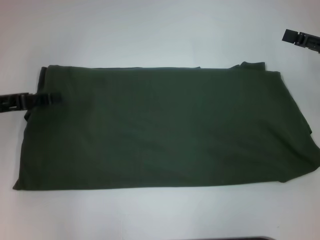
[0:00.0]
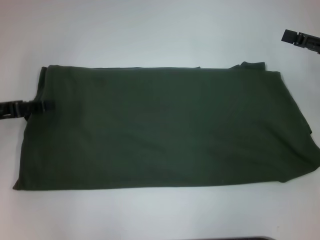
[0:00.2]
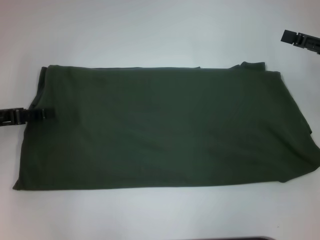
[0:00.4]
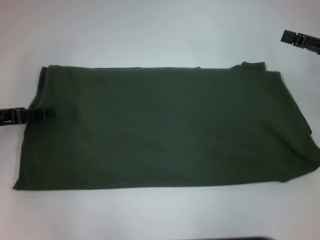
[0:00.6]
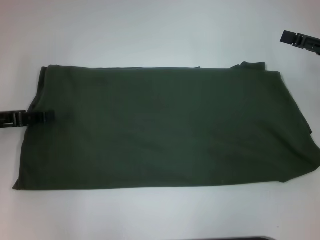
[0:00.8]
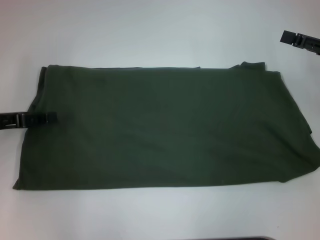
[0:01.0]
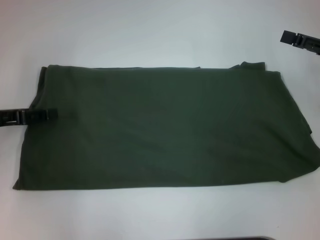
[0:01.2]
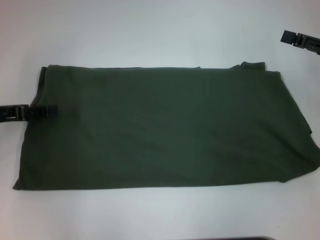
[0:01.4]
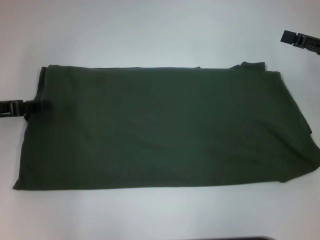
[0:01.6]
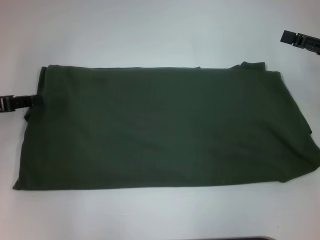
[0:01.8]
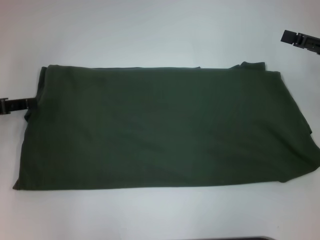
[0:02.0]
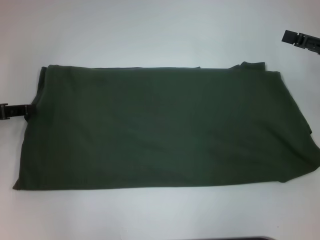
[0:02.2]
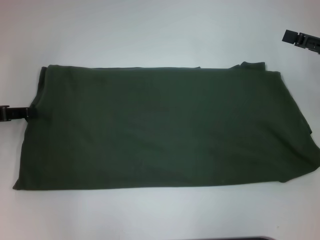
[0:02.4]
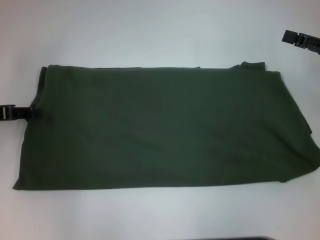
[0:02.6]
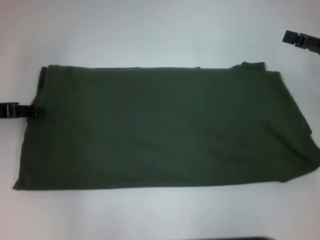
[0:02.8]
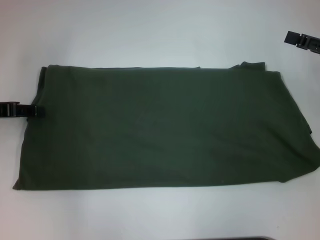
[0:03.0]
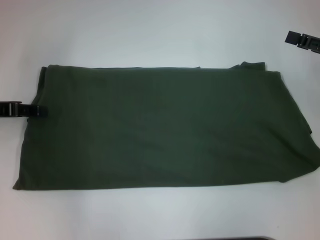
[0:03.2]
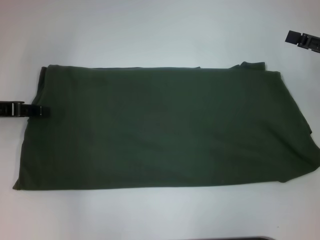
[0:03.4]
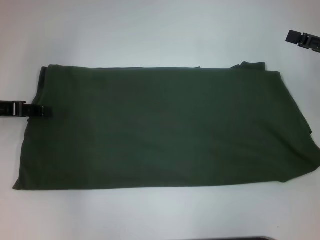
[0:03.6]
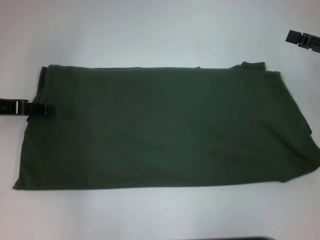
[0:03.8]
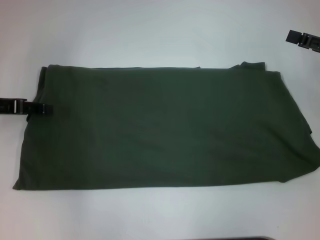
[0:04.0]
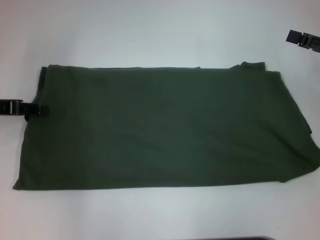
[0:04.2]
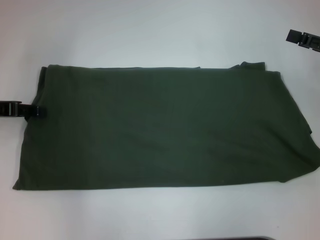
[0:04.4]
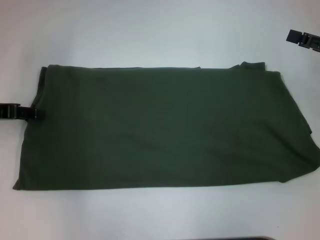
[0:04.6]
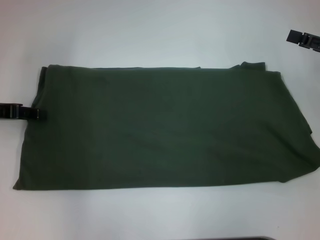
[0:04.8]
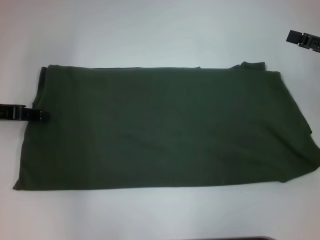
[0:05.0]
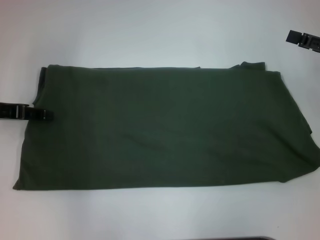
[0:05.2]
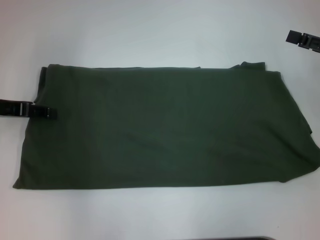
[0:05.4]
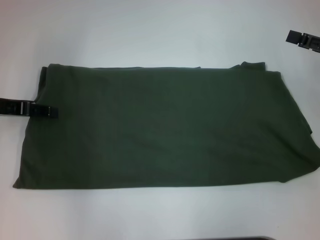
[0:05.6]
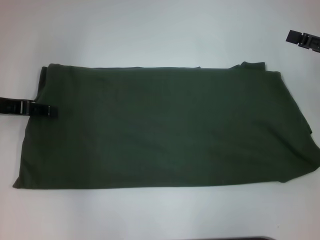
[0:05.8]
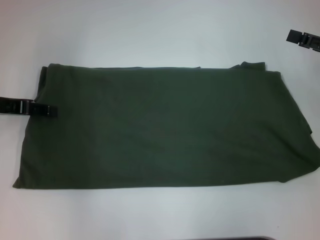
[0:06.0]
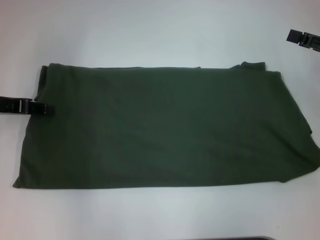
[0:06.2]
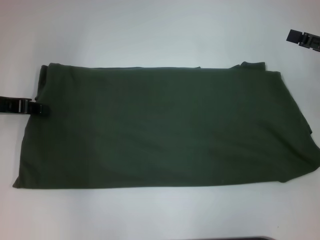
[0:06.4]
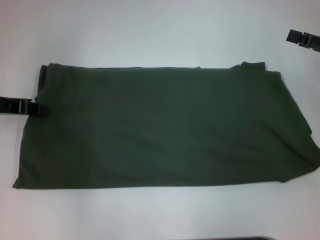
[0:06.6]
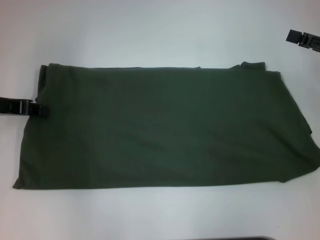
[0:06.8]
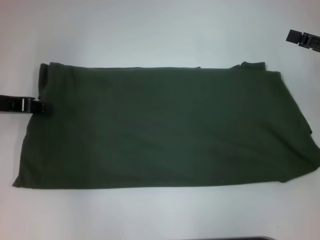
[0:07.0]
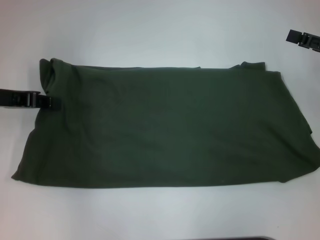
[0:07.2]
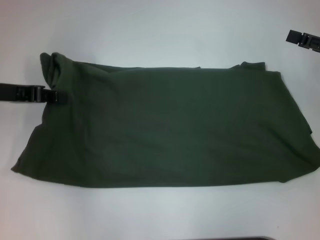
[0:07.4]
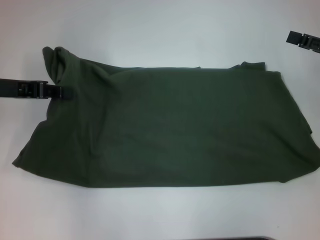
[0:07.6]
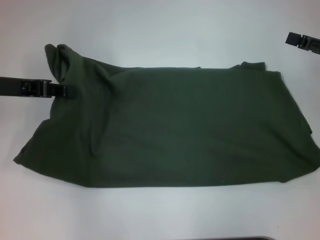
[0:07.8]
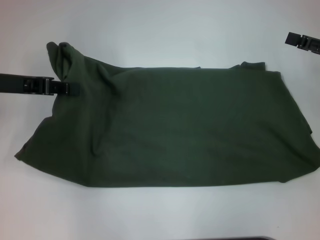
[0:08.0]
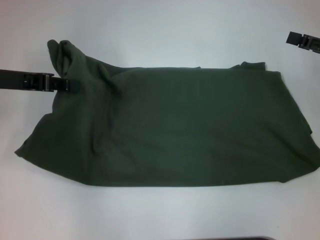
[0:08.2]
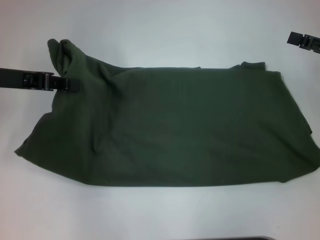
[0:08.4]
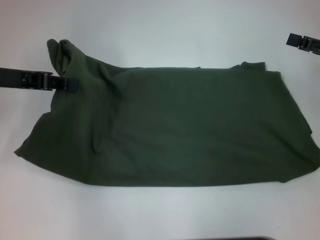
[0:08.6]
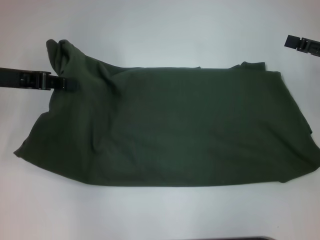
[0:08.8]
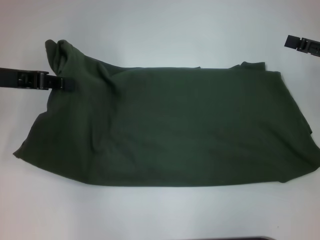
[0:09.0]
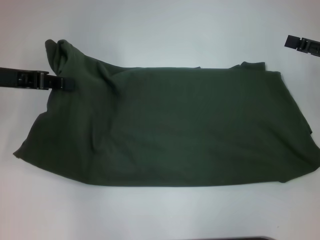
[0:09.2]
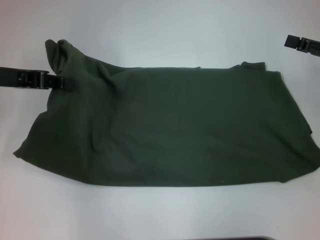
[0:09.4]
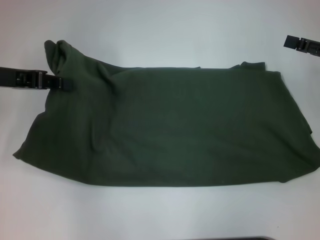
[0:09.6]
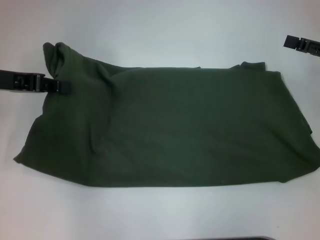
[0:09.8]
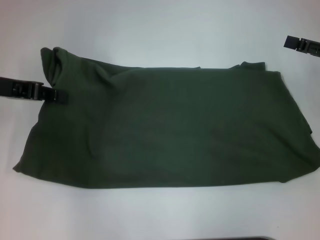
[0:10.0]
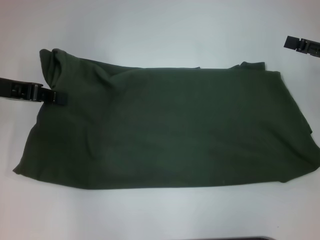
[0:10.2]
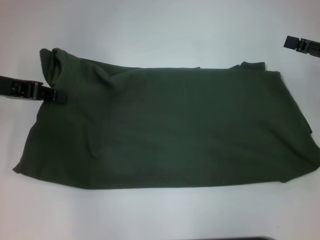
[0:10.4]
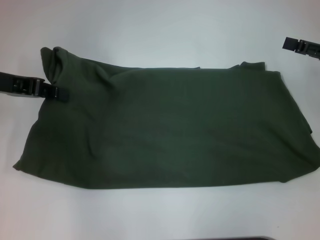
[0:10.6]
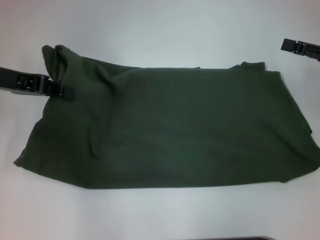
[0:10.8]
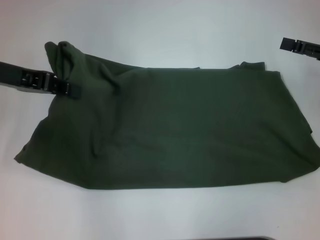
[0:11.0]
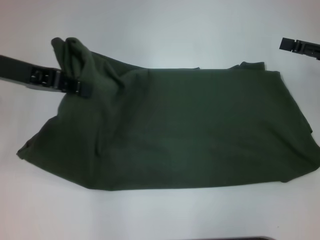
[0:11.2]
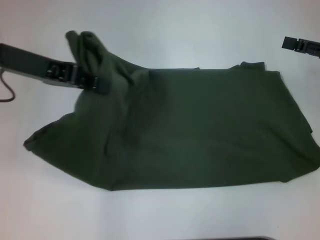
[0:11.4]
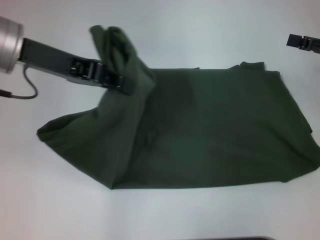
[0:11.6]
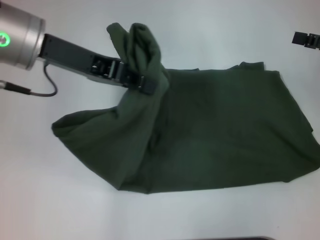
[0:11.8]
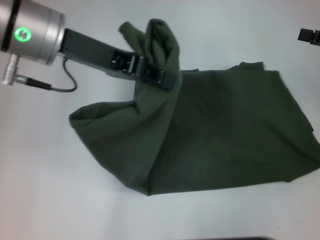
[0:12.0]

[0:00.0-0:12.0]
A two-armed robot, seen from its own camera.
0:00.0 to 0:01.6: The grippers make only small movements.
0:04.4 to 0:06.0: The grippers stay close to where they were, moving slightly.
0:06.0 to 0:07.6: The left gripper closes.
0:07.6 to 0:10.4: There are only small adjustments of the grippers.
0:10.4 to 0:12.0: The left gripper goes roughly 15 cm to the right and upward.

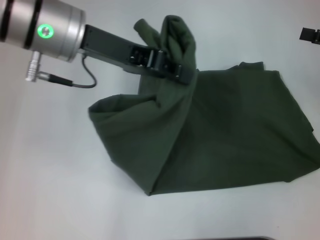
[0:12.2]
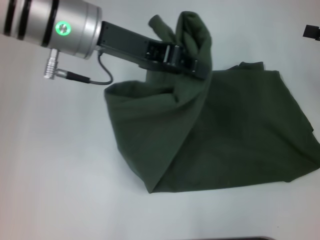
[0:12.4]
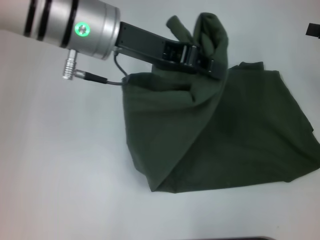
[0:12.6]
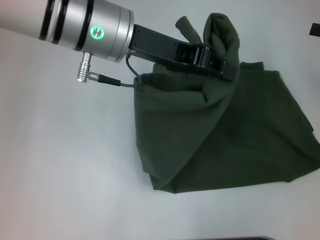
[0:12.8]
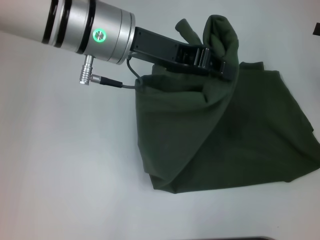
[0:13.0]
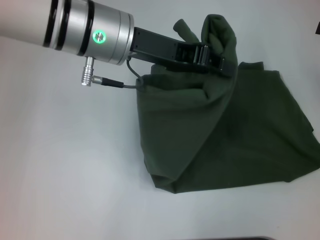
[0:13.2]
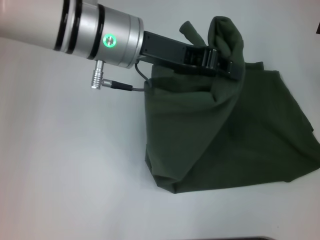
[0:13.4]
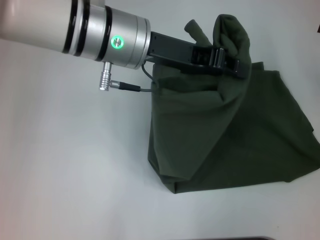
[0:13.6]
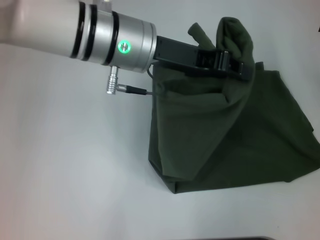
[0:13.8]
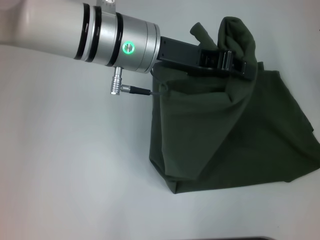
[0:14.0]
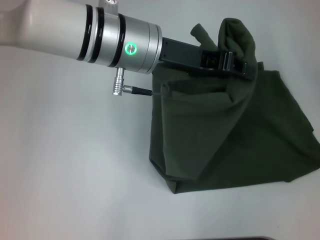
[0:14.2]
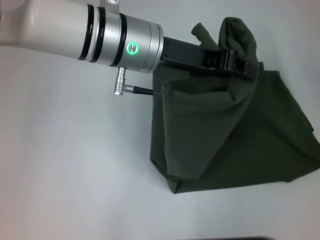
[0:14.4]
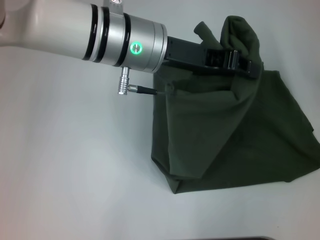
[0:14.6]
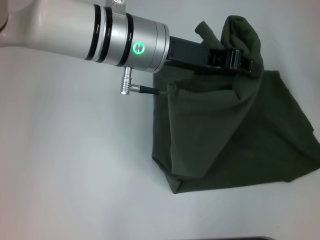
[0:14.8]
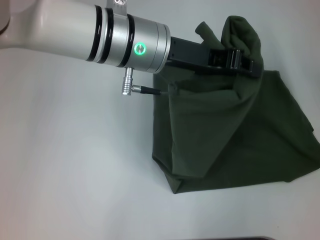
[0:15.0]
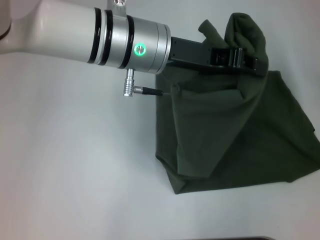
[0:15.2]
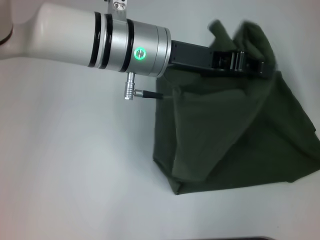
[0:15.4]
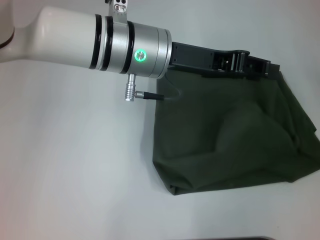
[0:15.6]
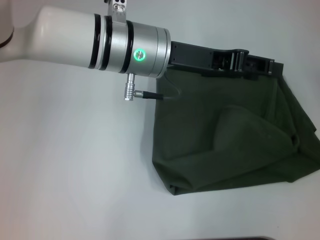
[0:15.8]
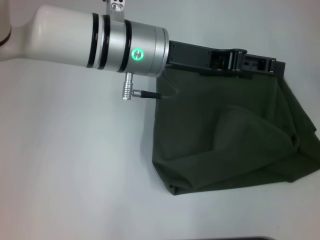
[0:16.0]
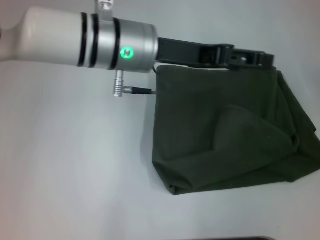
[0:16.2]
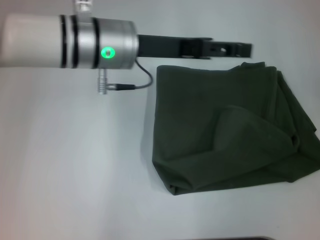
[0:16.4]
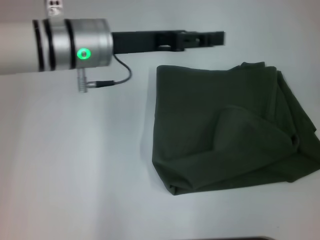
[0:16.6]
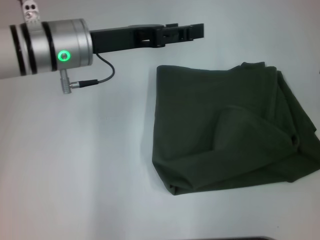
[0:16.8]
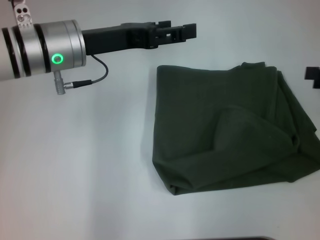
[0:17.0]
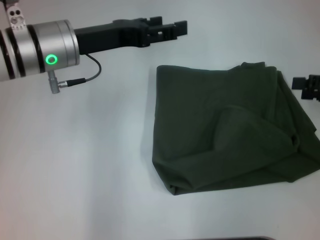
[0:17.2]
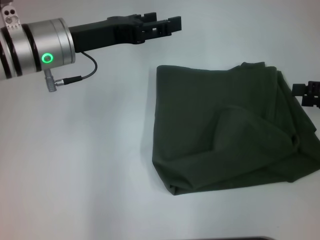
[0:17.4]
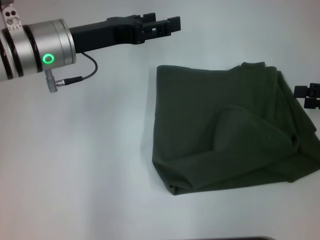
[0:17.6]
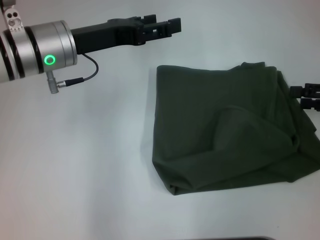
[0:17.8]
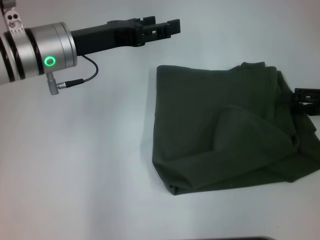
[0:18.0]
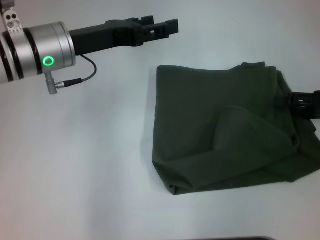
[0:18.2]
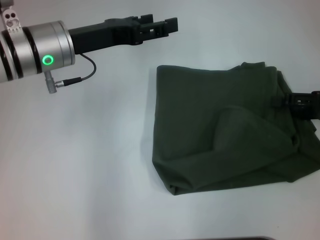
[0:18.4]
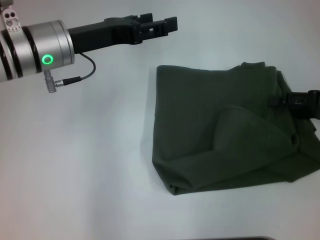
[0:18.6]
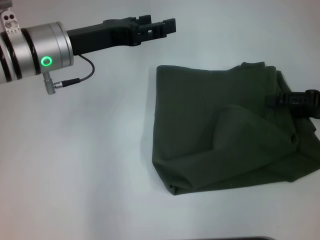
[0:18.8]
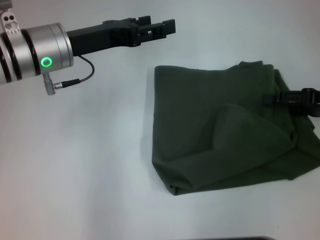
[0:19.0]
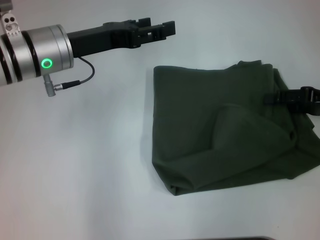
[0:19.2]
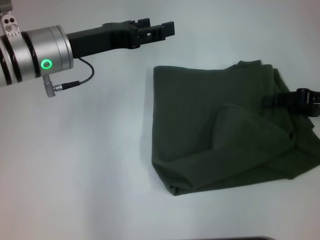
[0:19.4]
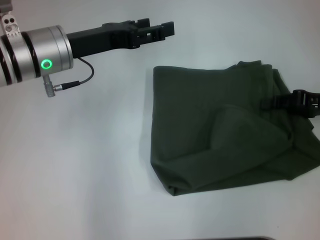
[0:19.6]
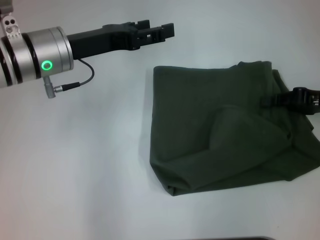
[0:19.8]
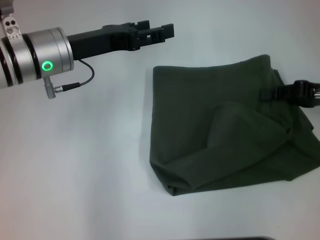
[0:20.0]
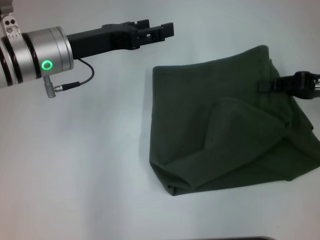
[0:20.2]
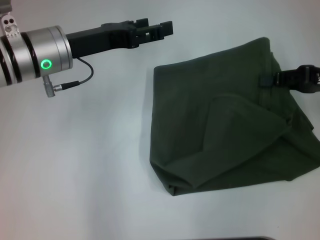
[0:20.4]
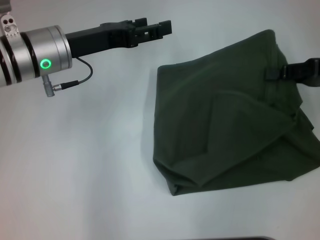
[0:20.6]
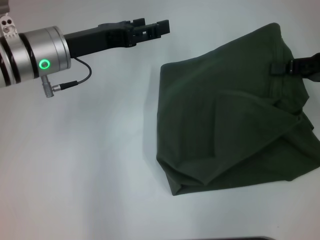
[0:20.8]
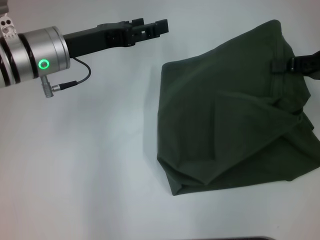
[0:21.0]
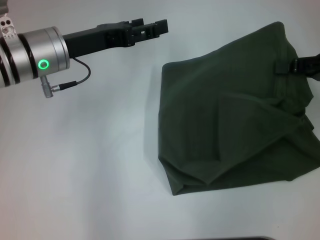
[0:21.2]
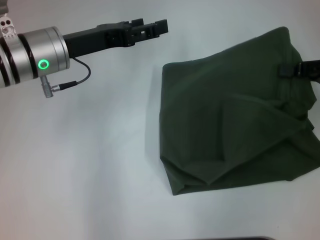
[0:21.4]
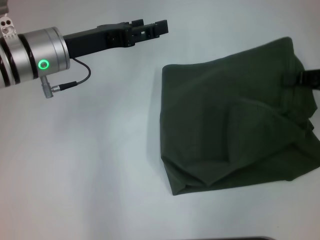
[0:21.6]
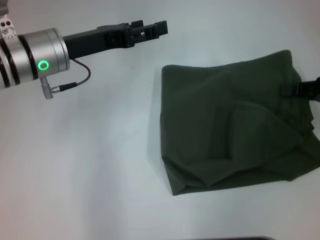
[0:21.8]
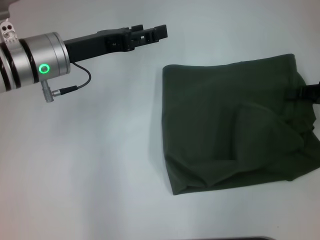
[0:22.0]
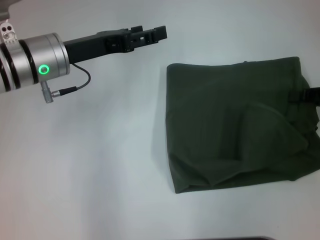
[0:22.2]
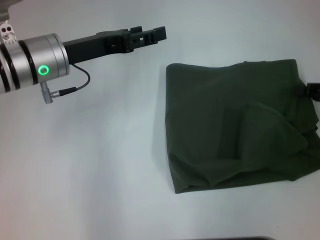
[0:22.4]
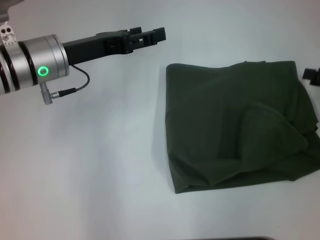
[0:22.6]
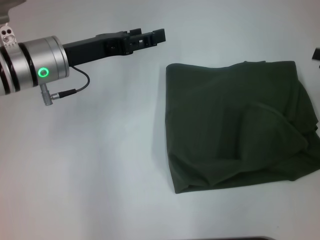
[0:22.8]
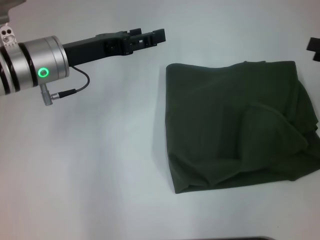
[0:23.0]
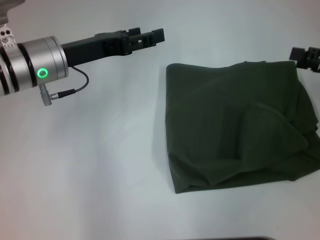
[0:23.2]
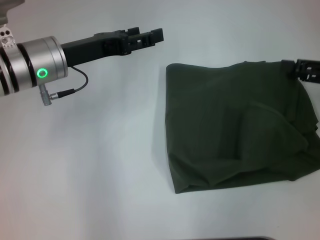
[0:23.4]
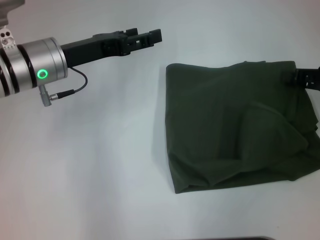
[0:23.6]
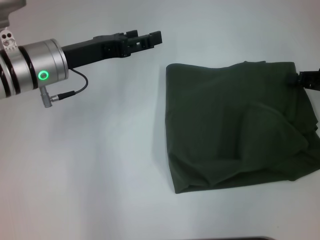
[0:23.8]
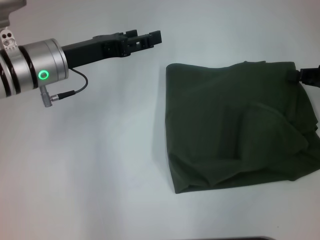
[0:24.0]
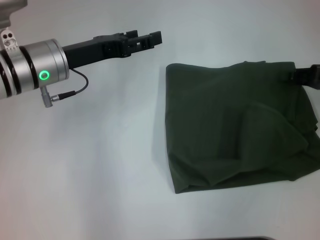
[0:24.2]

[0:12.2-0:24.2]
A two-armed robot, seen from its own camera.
Step, 0:12.2 to 0:15.6: Fold the clothes with your left hand.
0:12.2 to 0:13.8: The left gripper moves to the right, approximately 5 cm.
0:13.8 to 0:15.2: The grippers stay close to where they were, moving slightly.
0:15.2 to 0:16.6: The left gripper heads to the left, covering approximately 5 cm, and opens up.
0:16.6 to 0:18.2: The right gripper goes about 10 cm downward and to the left, while the left gripper goes approximately 5 cm to the left.
0:18.2 to 0:19.8: The right gripper closes up.
0:19.8 to 0:21.2: The right gripper goes some 5 cm upward.
0:21.2 to 0:22.6: The right gripper ends up about 5 cm from where it was.
0:22.6 to 0:24.2: The right gripper opens and closes again.
